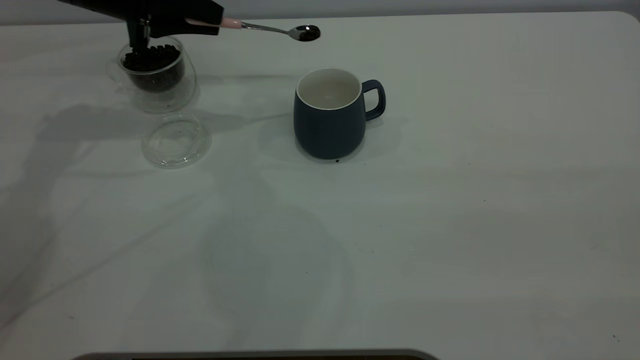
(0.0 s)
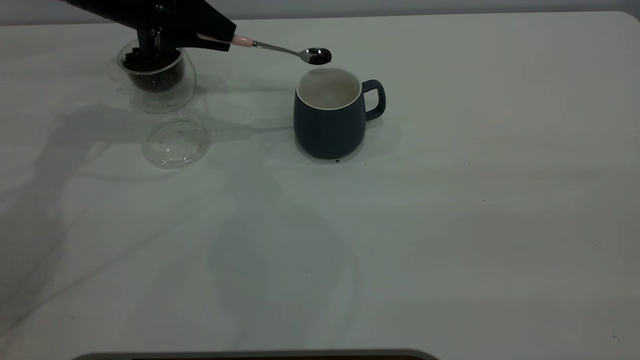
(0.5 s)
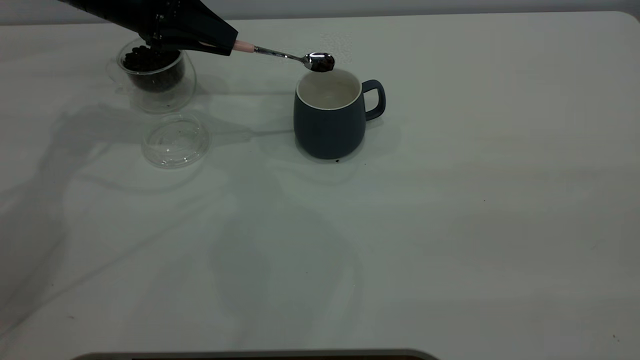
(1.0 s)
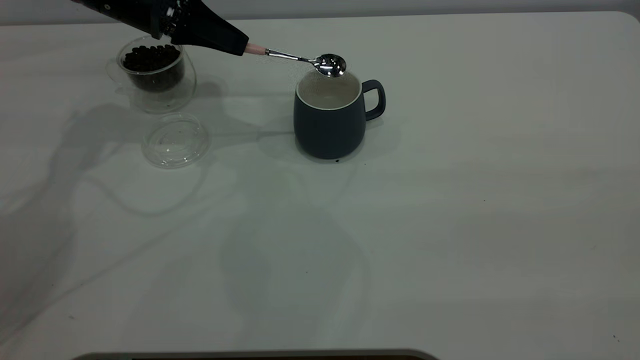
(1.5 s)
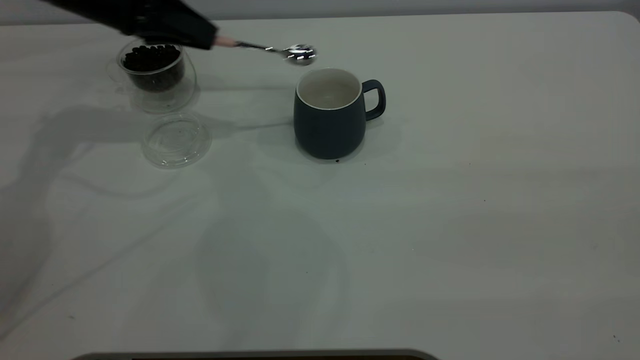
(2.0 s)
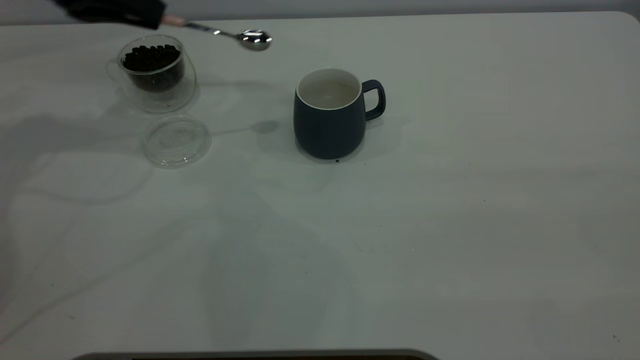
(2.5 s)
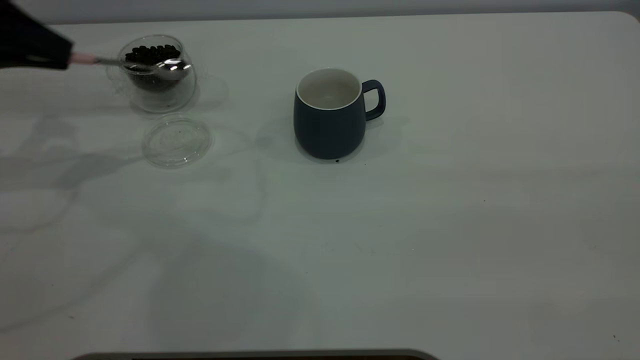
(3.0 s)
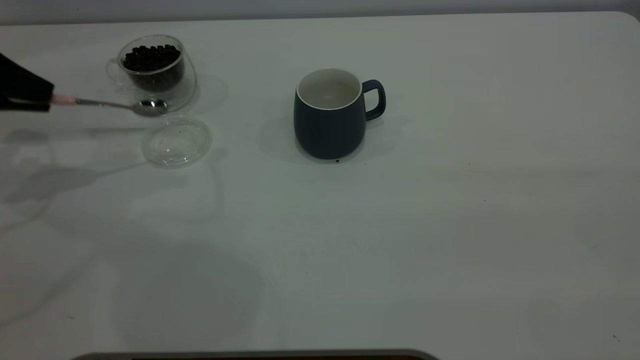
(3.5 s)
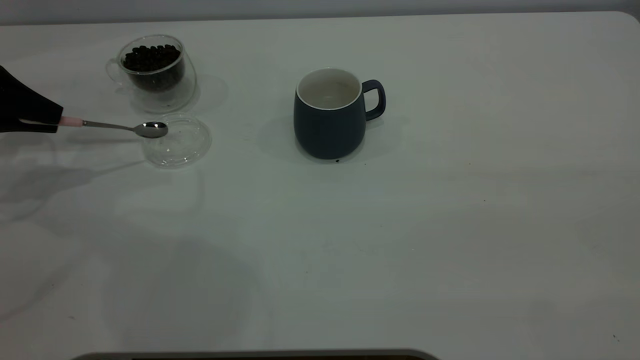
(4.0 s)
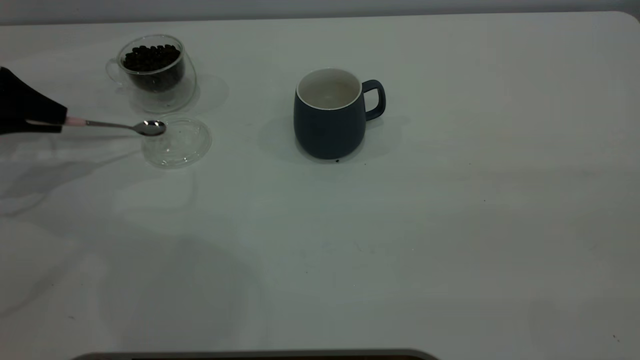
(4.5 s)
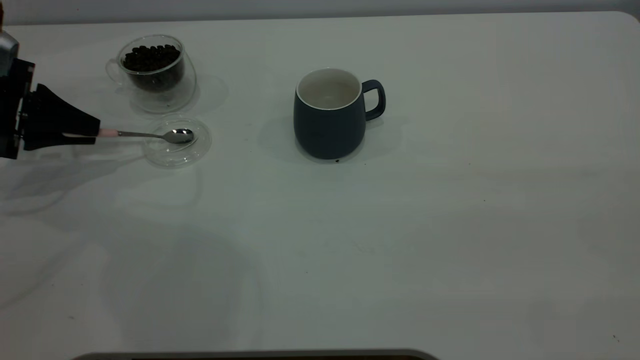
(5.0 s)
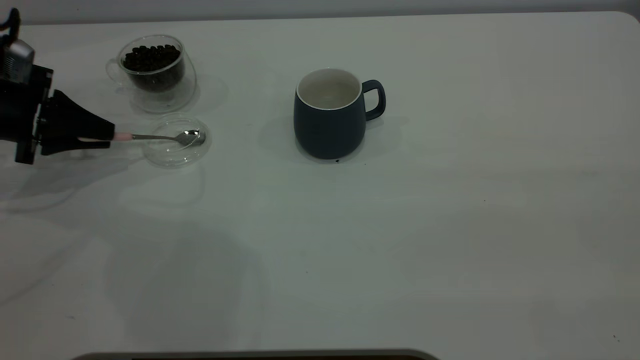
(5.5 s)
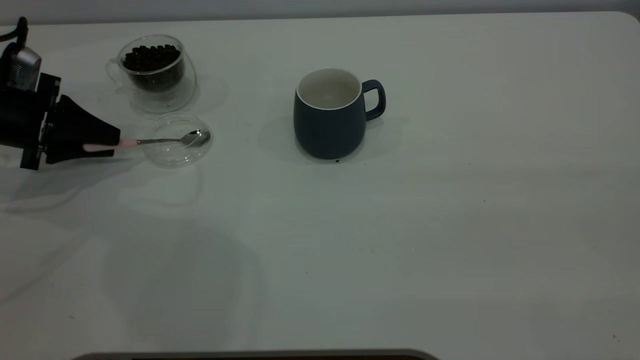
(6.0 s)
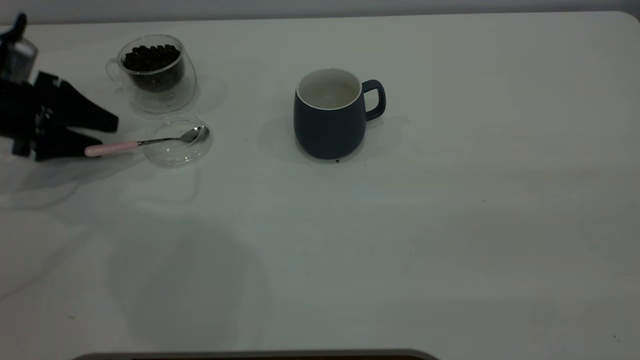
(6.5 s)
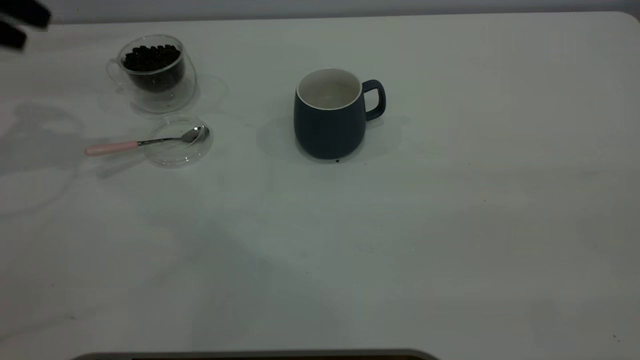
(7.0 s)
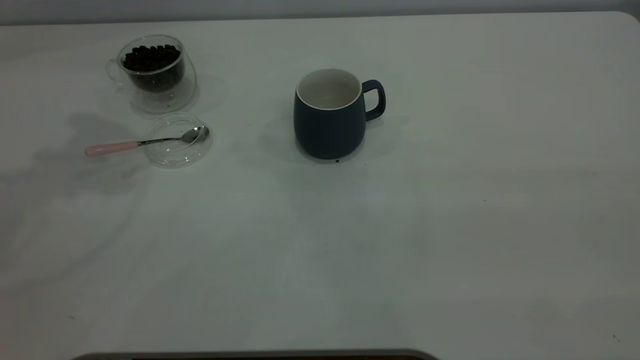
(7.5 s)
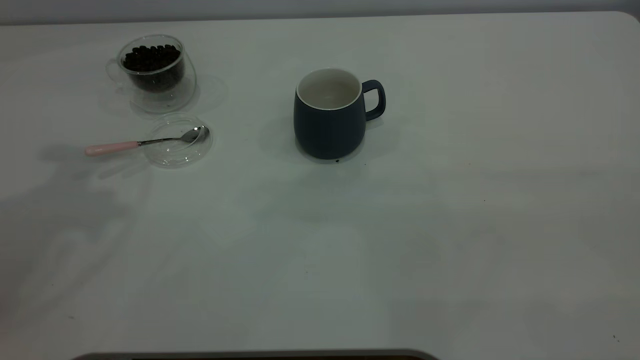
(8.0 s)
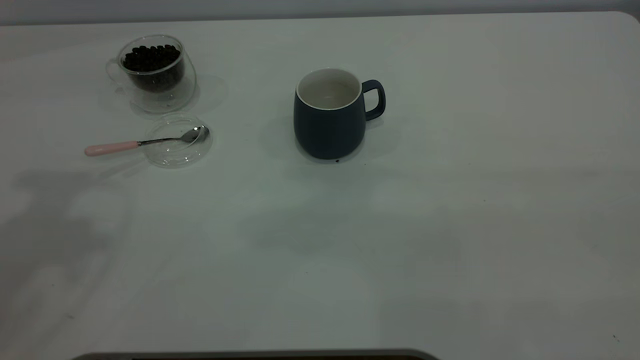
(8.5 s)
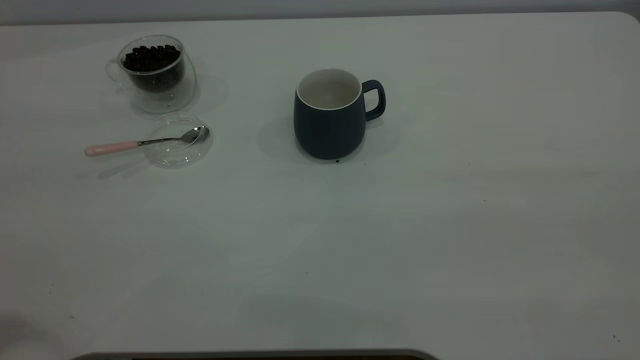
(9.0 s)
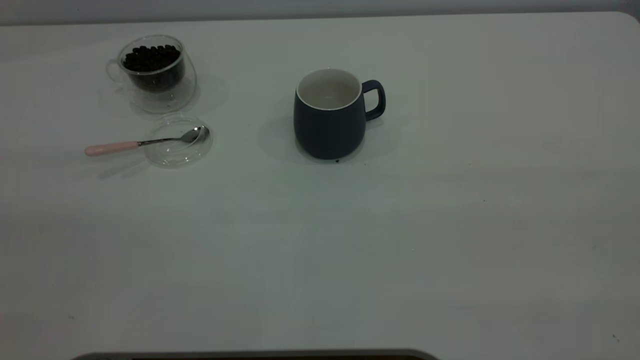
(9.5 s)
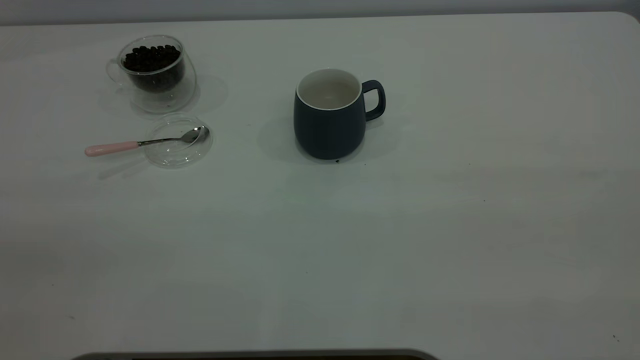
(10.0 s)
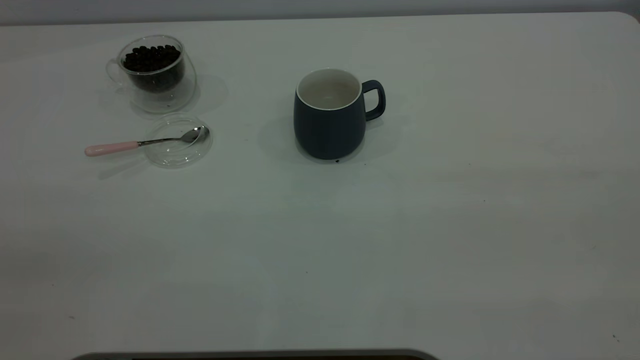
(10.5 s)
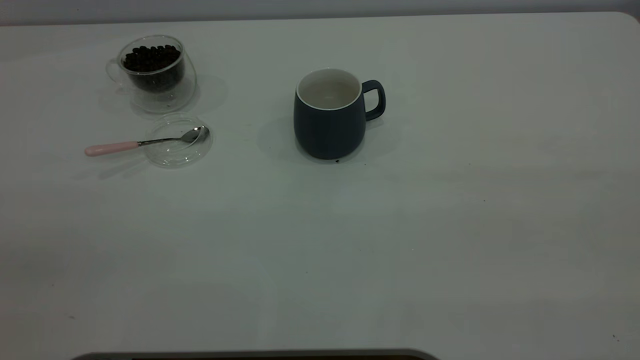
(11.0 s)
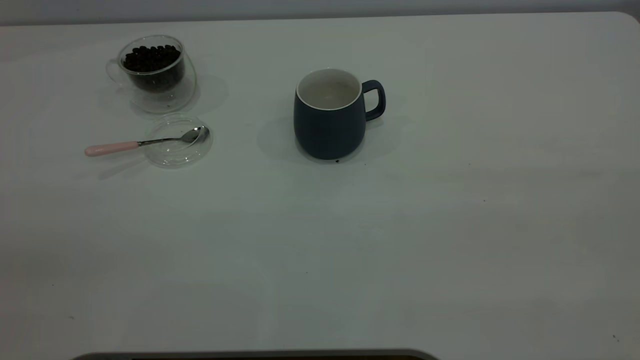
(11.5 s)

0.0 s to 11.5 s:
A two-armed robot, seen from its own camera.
Task of the whole recording: the right gripper place the grey cup in the center of the table, the left gripper take the pink spoon from the cup lid and scoop out the coffee beans from the coffee cup and put them into the grey cup, the left gripper put the spoon back into the cup lid.
Step, 0.0 to 2.0 s: Scoop a spoonful of beans into the cup.
Step, 2.5 to 6.5 s: Place the spoon back in its original place.
2.0 to 4.0 s: The left gripper shifts roughly 20 cm to the left and backward.
4.0 to 6.0 s: The left gripper goes roughly 5 cm downward, and opens up.
6.0 to 7.5 s: The left gripper travels upward by roughly 30 cm, and opens its fingers.

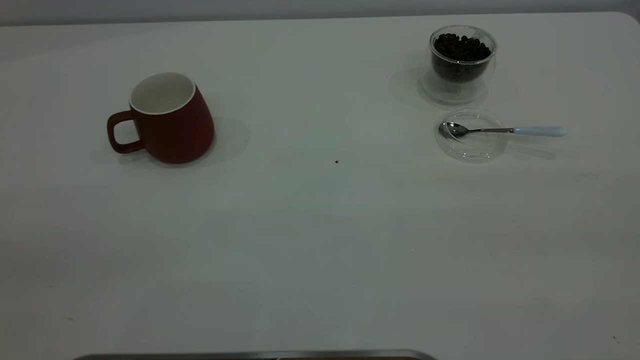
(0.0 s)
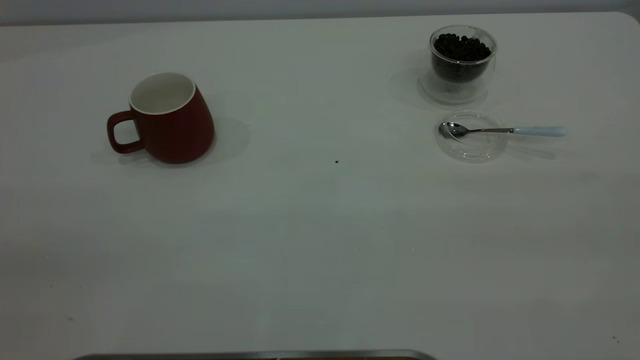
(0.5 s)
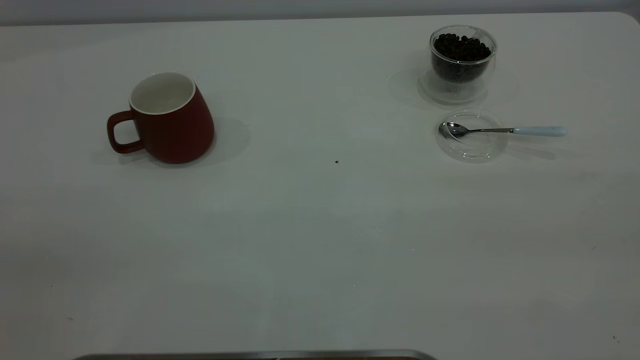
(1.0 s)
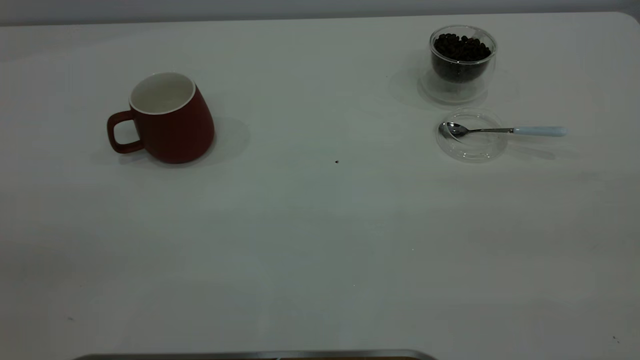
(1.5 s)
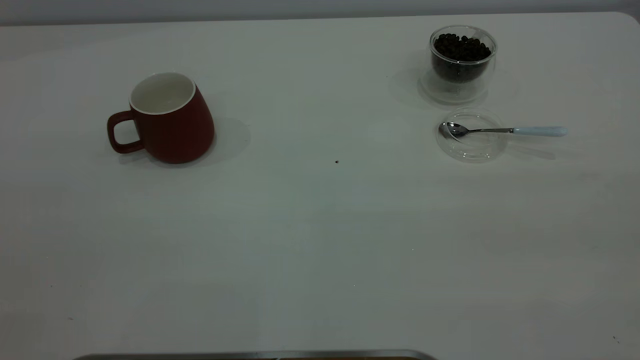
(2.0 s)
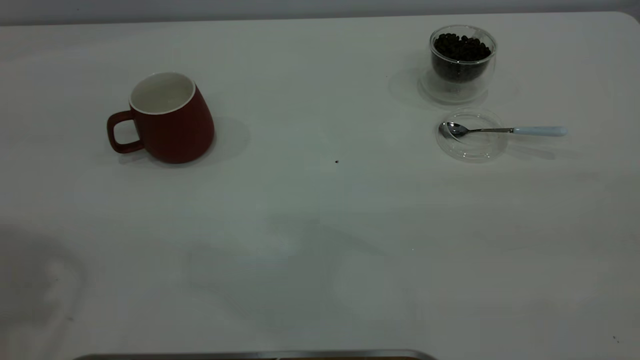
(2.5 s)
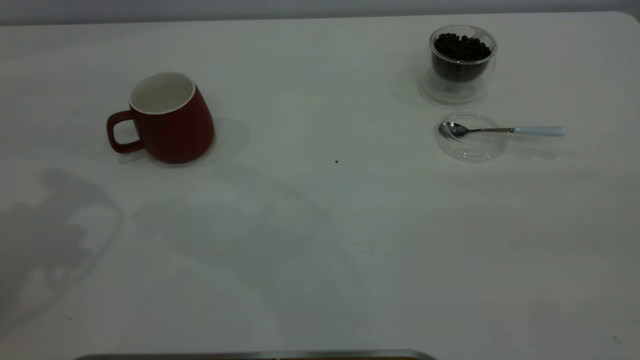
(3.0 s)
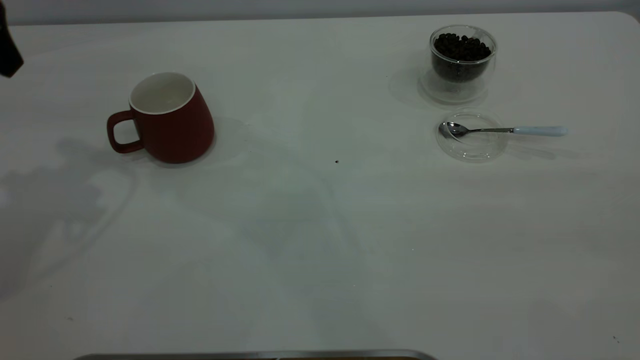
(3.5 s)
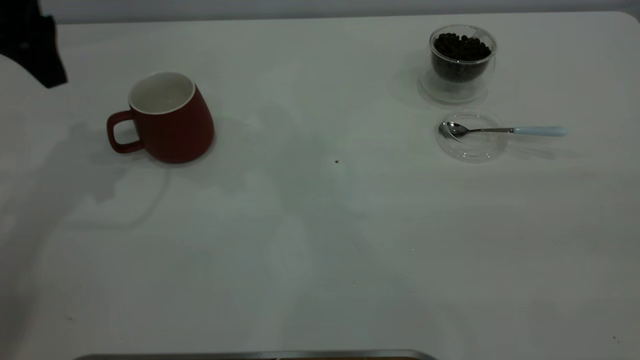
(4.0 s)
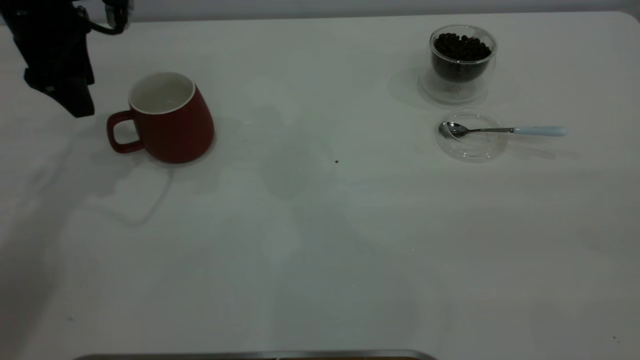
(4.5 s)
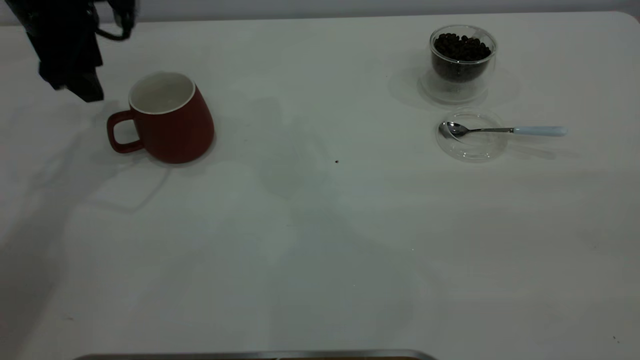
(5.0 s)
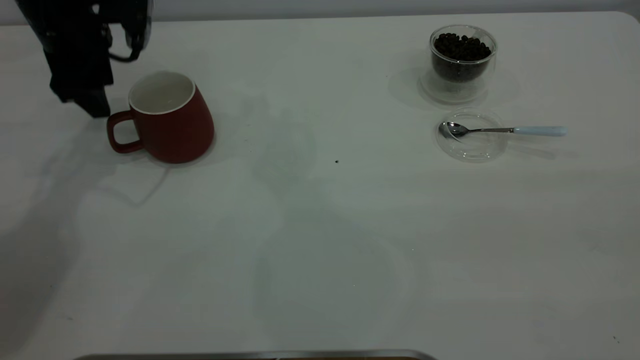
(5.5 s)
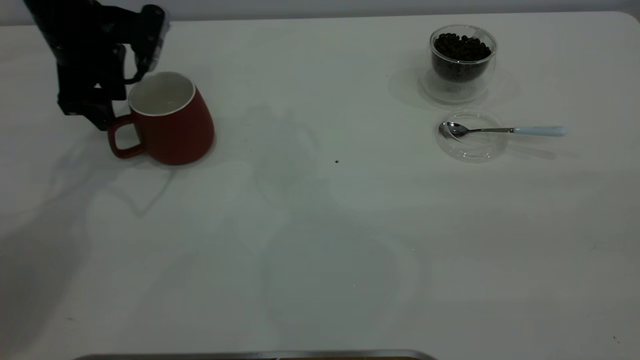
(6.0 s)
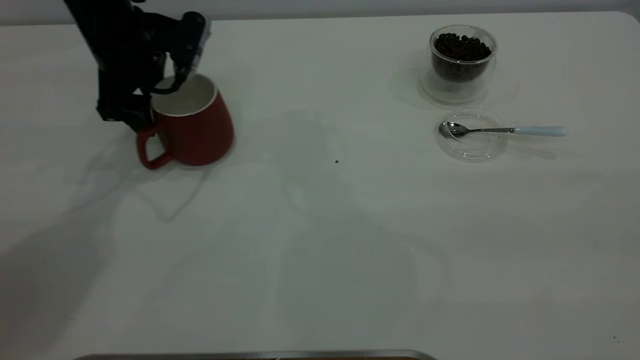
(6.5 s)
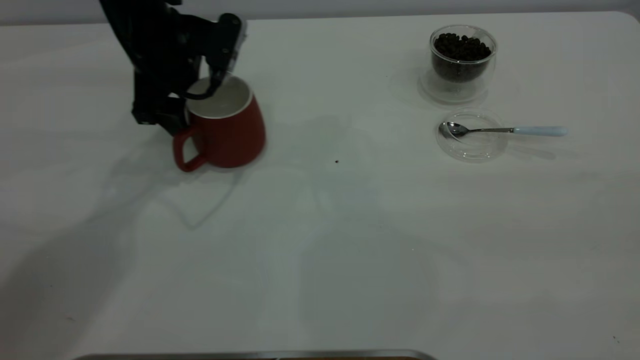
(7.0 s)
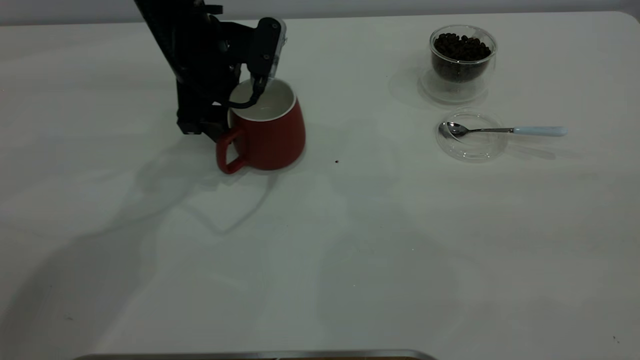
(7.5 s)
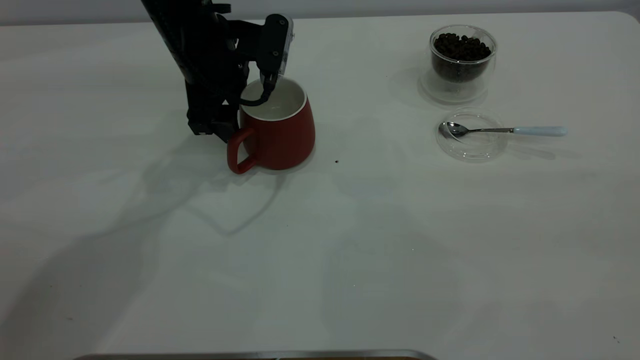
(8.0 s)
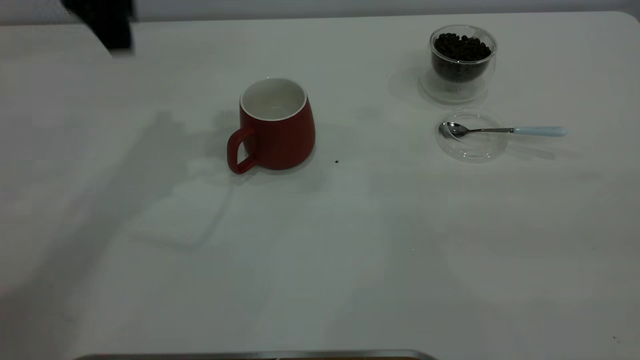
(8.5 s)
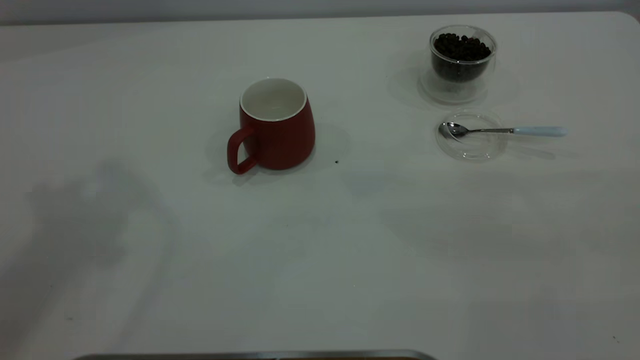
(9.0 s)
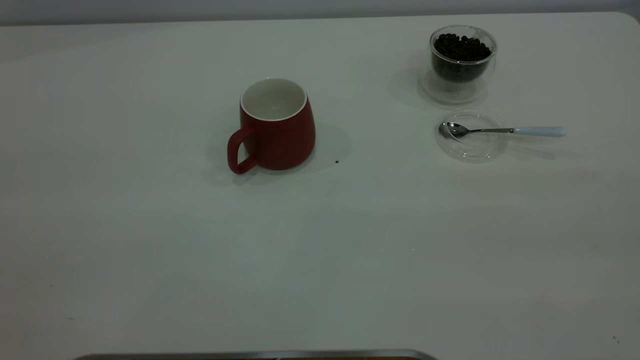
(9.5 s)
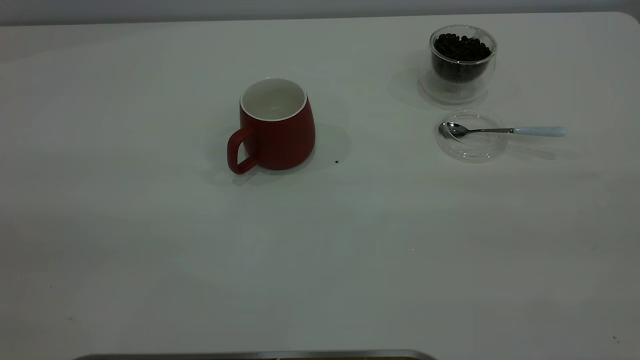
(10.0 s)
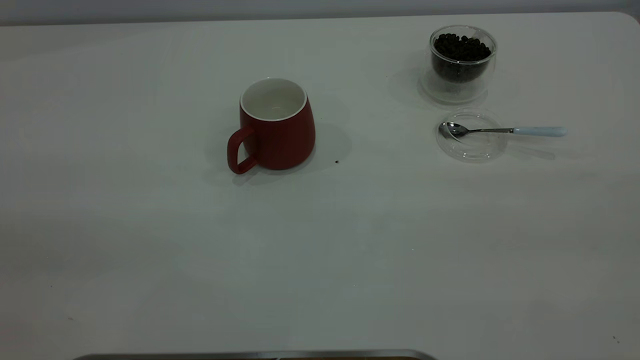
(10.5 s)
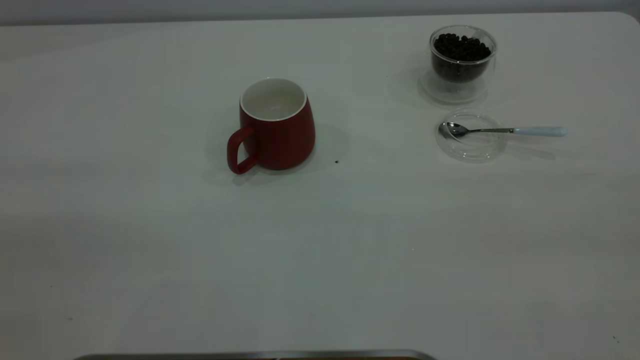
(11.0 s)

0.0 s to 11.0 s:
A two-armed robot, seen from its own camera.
Task of the whole recording: the left gripper place the red cup in the center of the table, the right gripper take the blue spoon from the cup lid and scoop out the coffee beans from the coffee cup and put them into the red cup, the right gripper put the spoon back into the cup lid.
Step, 0.0 to 8.0 s: Move the cup to the center of view.
3.5 to 5.5 s: The left gripper shifts some 15 cm downward and forward.
5.5 to 7.5 s: The left gripper moves to the right, approximately 15 cm.
7.5 to 9.0 s: The left gripper heads upward and backward, covering about 40 cm.
